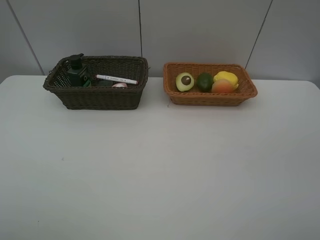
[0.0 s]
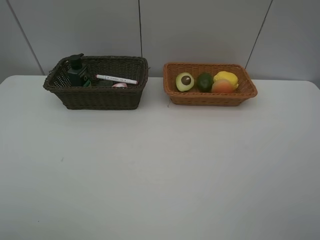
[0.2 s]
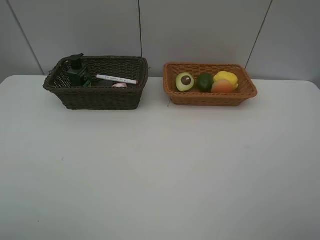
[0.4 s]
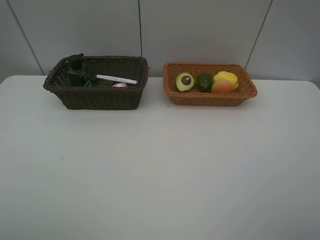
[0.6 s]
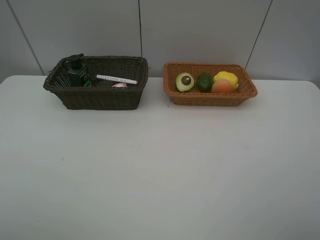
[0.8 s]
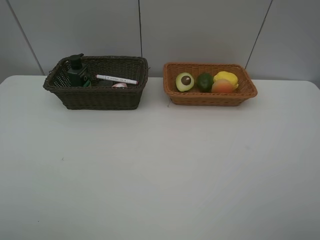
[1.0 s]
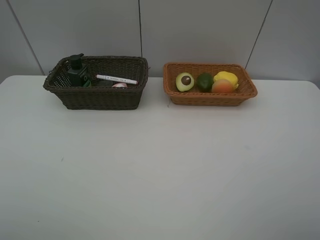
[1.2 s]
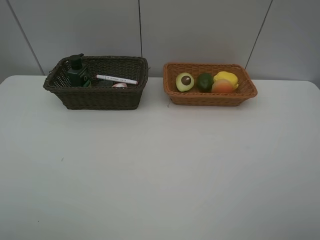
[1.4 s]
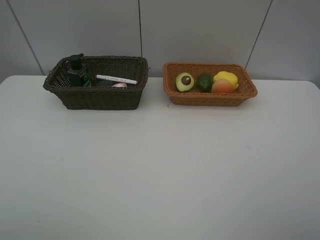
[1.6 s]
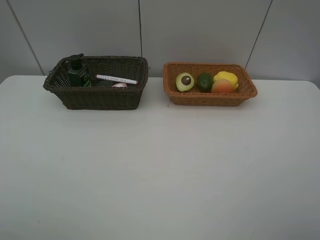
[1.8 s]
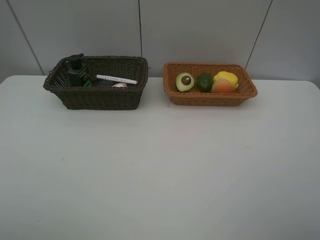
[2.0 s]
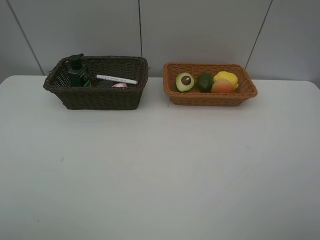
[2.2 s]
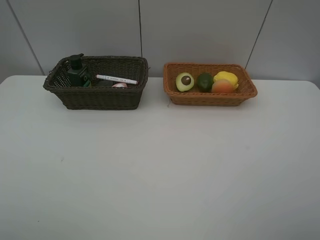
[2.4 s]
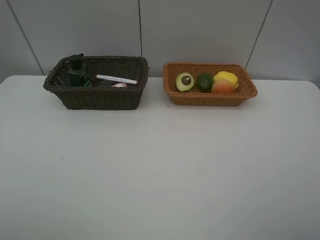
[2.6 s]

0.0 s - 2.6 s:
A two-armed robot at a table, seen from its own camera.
Task of the whole recording: Place multiple objects separately in different baskets.
1.2 s - 2.6 s: The two grippers keep their place.

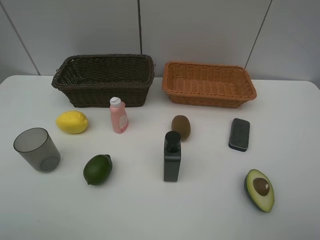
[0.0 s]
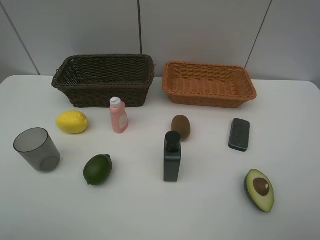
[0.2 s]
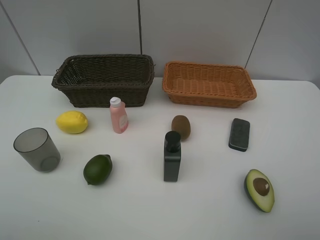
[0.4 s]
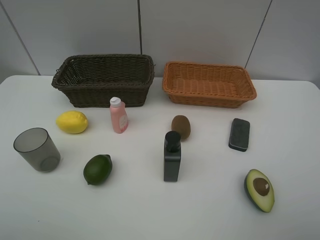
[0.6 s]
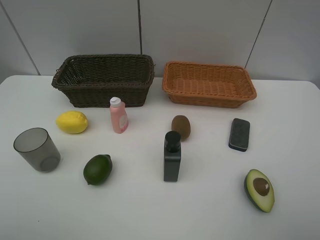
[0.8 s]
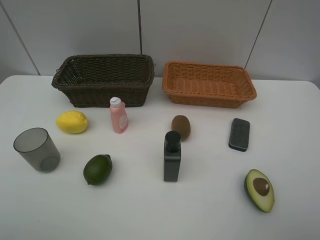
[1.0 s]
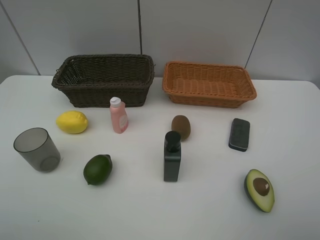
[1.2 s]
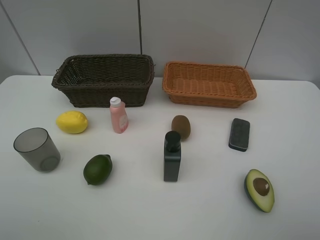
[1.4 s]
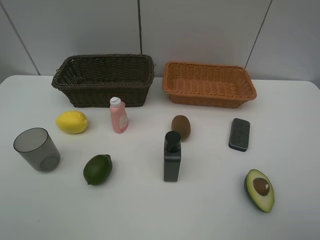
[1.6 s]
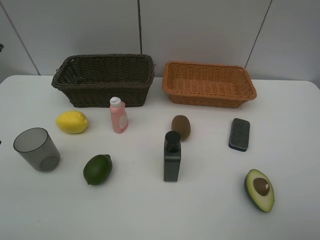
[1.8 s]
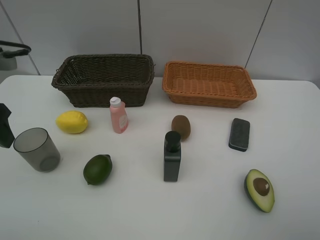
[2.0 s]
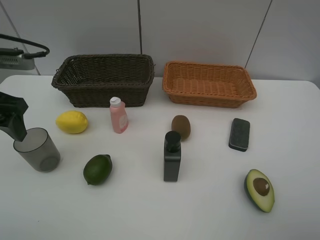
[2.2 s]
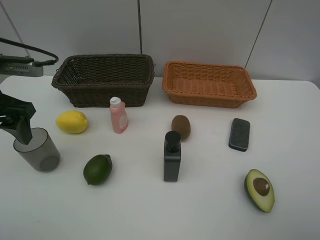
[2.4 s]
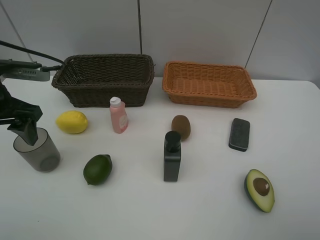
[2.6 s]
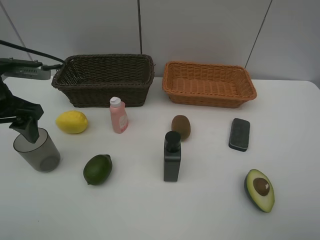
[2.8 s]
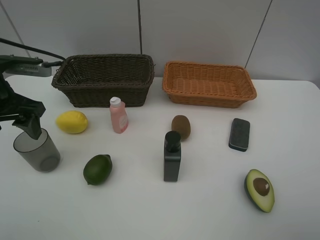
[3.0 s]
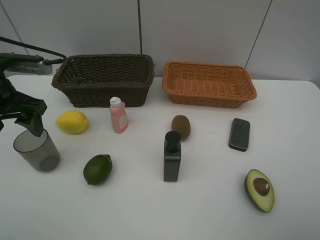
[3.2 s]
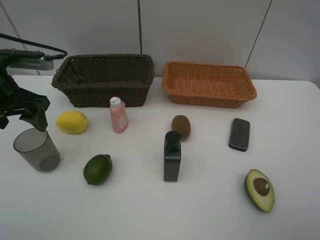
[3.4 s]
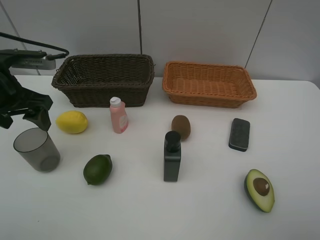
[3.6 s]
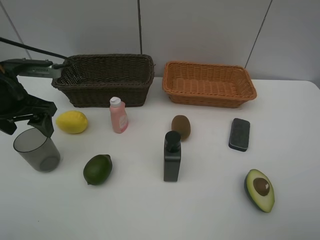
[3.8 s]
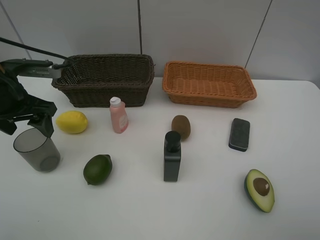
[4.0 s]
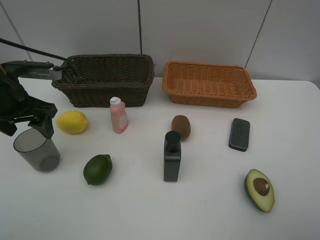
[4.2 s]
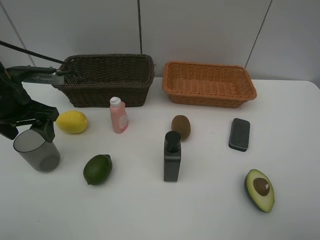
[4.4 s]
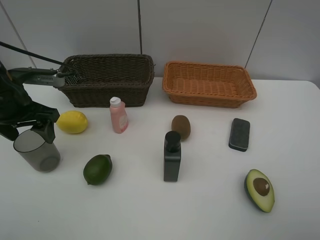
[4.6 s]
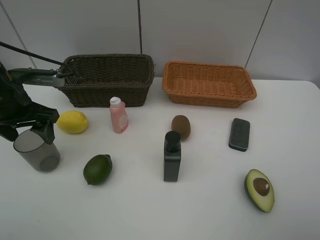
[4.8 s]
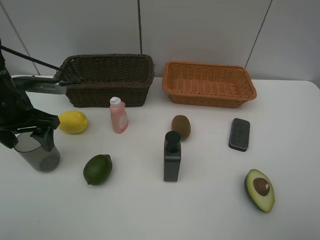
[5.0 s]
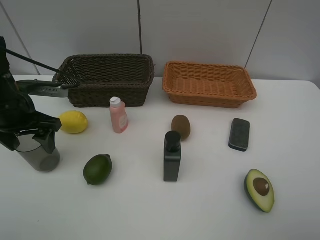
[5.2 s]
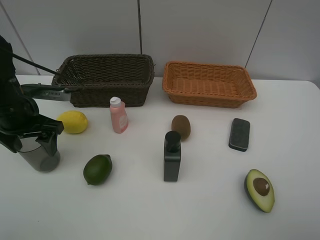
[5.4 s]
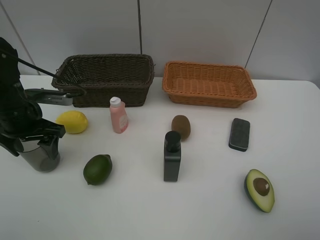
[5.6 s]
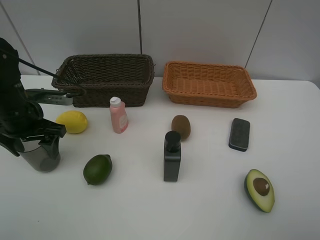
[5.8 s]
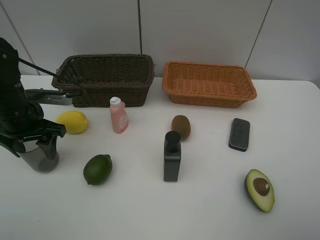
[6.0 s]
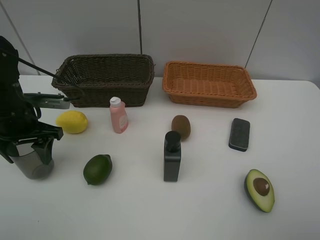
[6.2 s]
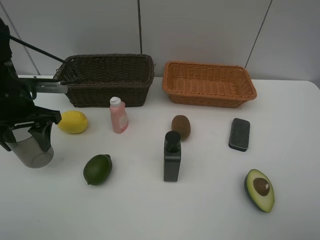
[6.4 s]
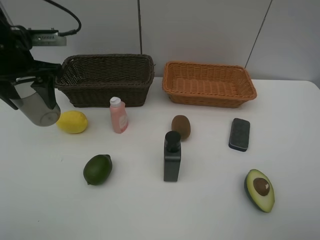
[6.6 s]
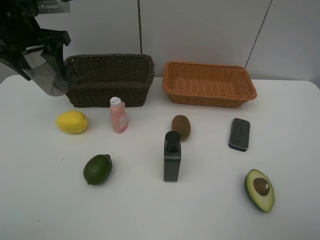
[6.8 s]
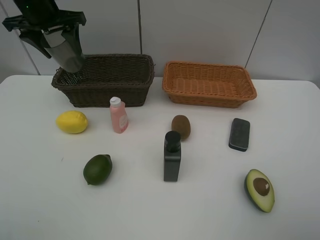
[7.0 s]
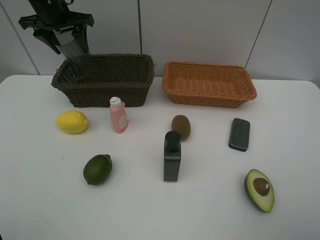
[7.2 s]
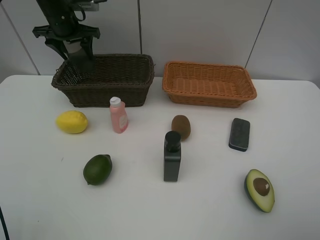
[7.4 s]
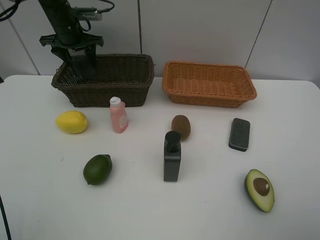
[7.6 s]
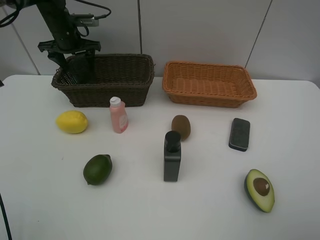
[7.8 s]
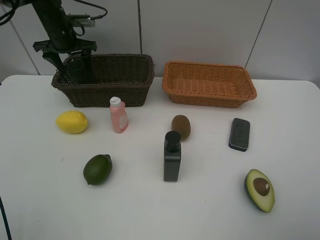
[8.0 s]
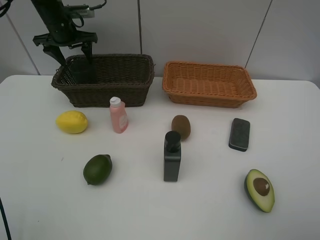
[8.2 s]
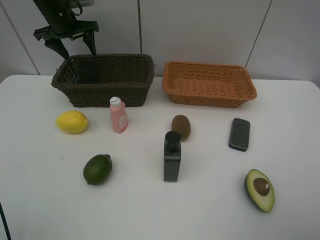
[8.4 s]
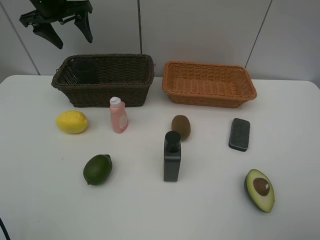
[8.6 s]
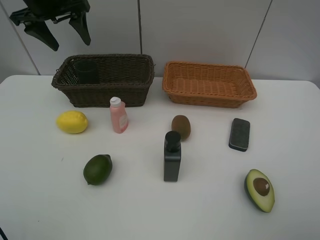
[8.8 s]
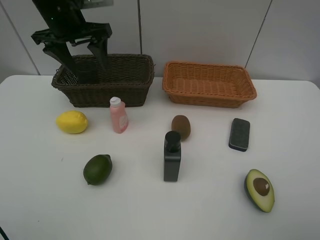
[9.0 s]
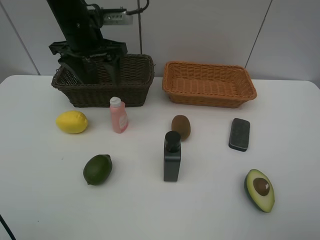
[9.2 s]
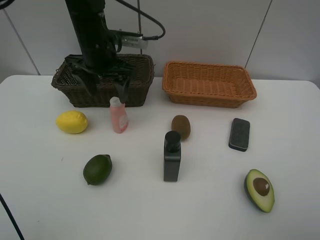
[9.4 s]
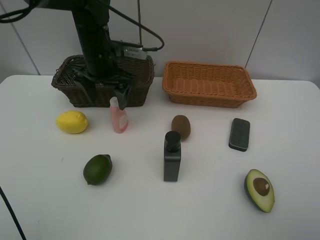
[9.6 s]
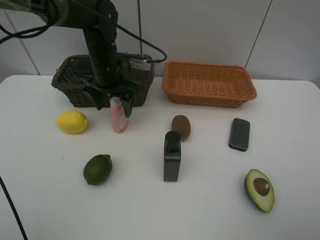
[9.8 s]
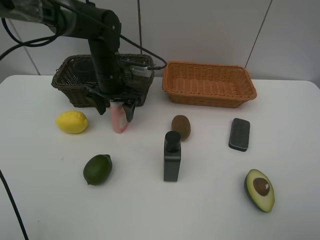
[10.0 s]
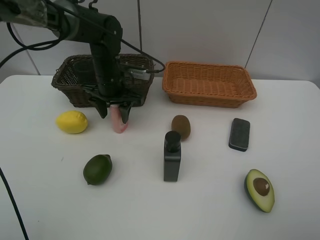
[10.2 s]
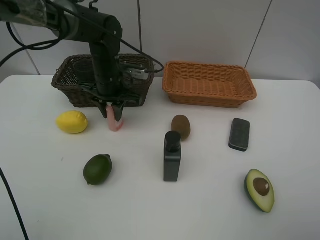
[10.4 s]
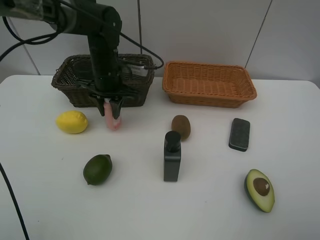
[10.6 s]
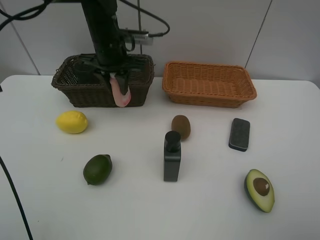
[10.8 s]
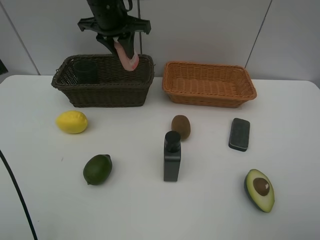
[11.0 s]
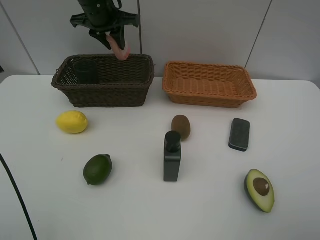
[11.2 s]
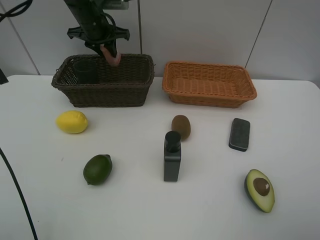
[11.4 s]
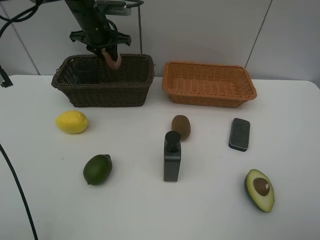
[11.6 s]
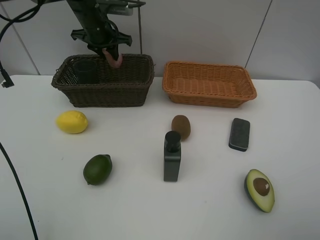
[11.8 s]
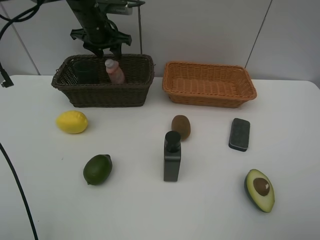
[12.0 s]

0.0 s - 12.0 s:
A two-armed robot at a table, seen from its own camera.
Task of the whole recording: Place multiple objects separately in different baskets.
Step, 0.0 s - 6.2 s: Pick up gray cup with left gripper.
Step, 6.4 s - 8.4 s: Place the gray cup in the dark basket with left gripper.
Step, 8.6 s - 10.6 s: Pick up the laundry detergent with left gripper.
1.6 s - 3.0 s: The left gripper is displaced forward and downward by approximately 15 cm.
3.0 s - 4.4 s: The grippers make only small movements.
4.4 s - 6.0 s: The grippers stay close to where they were, moving slightly.
6.0 s - 7.6 s: The left gripper travels forward by about 25 cm.
7.6 s - 9.0 s: The left gripper is displaced backward, upward and to the right by approximately 15 cm.
9.0 s - 10.4 s: The left gripper travels downward and to the right by roughly 15 cm, and closes up.
10.4 s - 12.0 s: The left gripper moves forward and upward, some 15 cm, and opens up.

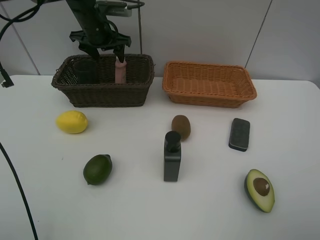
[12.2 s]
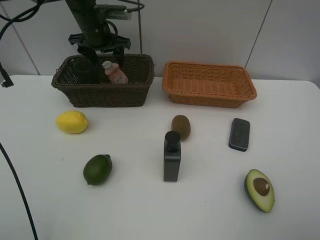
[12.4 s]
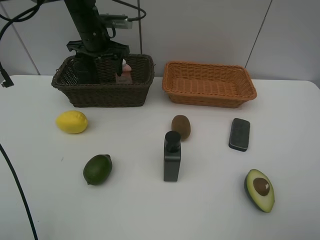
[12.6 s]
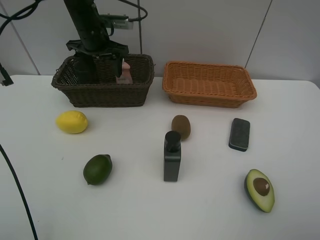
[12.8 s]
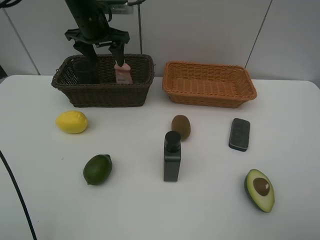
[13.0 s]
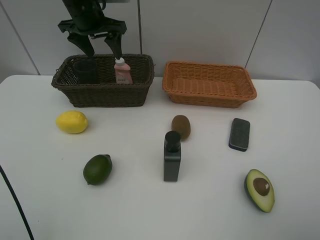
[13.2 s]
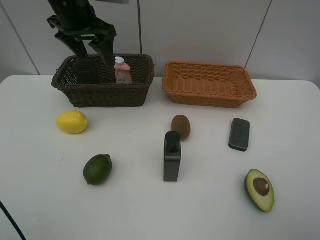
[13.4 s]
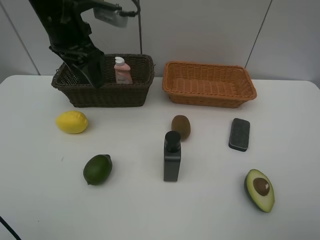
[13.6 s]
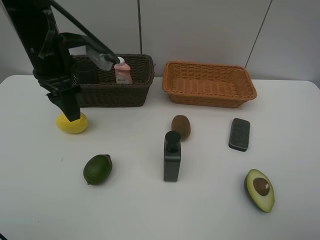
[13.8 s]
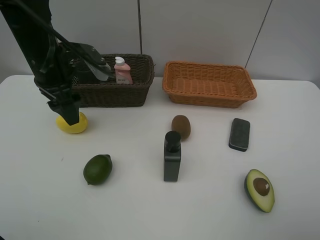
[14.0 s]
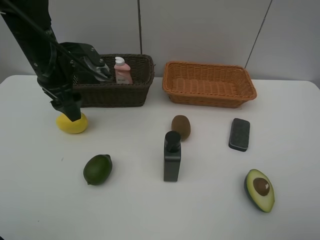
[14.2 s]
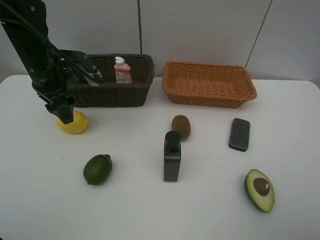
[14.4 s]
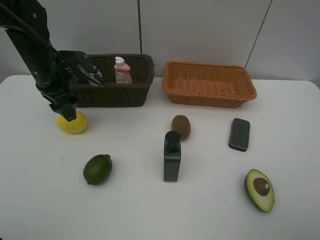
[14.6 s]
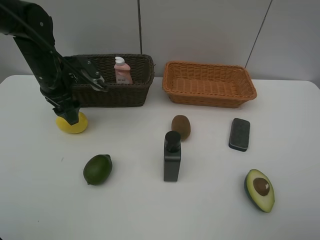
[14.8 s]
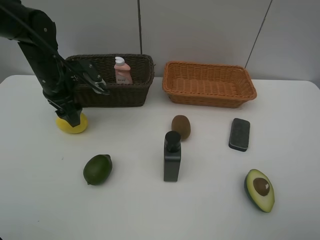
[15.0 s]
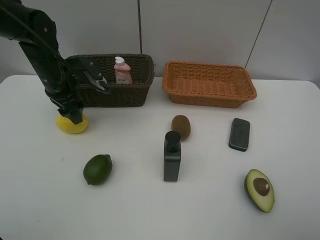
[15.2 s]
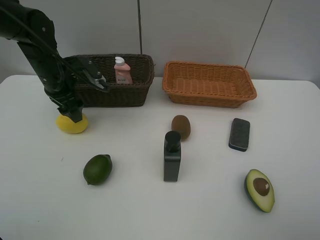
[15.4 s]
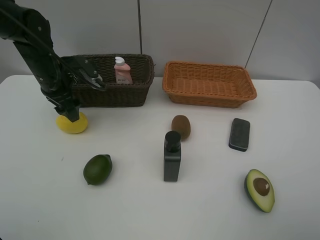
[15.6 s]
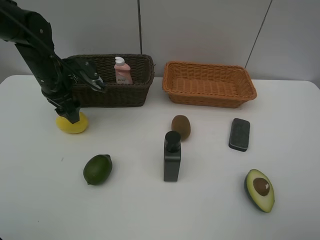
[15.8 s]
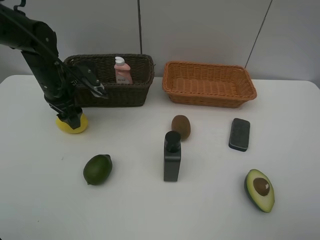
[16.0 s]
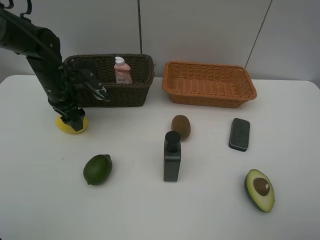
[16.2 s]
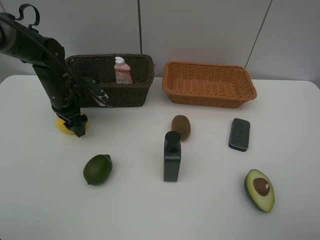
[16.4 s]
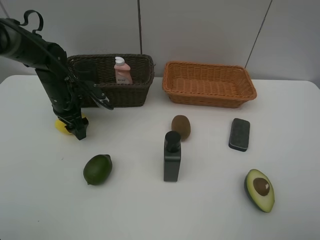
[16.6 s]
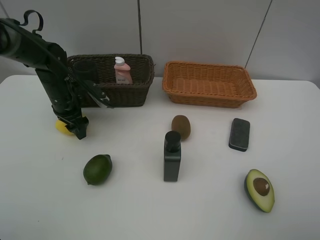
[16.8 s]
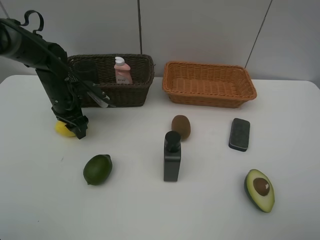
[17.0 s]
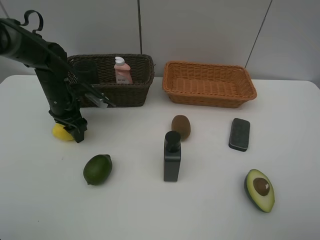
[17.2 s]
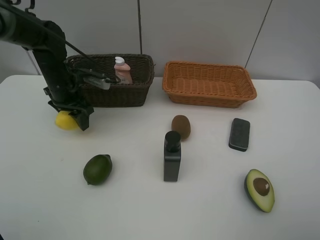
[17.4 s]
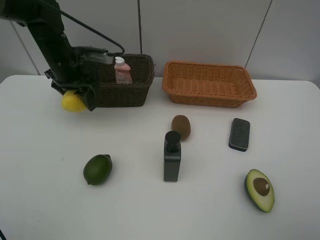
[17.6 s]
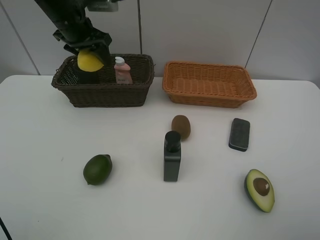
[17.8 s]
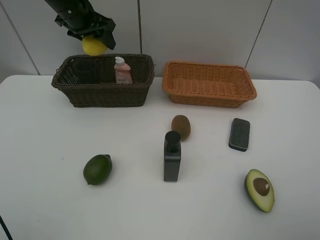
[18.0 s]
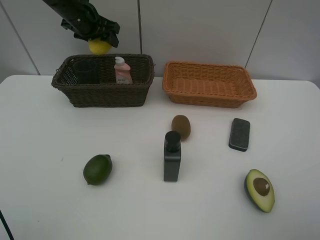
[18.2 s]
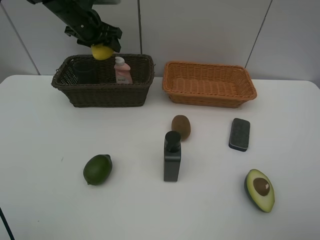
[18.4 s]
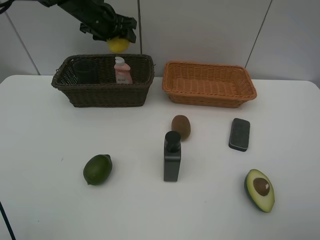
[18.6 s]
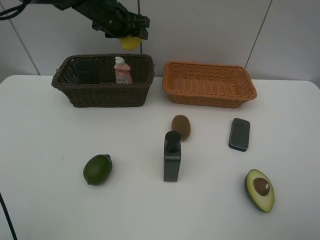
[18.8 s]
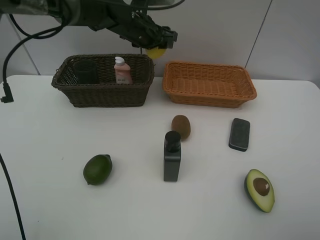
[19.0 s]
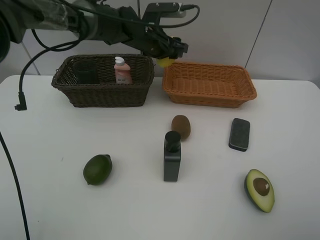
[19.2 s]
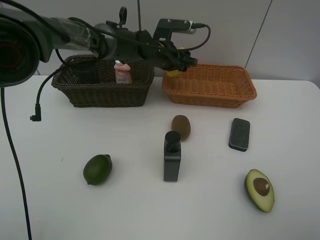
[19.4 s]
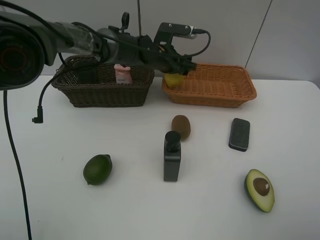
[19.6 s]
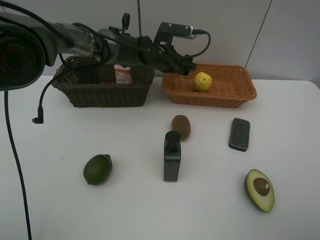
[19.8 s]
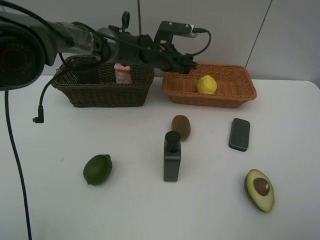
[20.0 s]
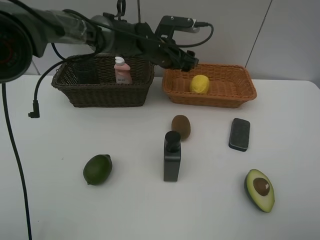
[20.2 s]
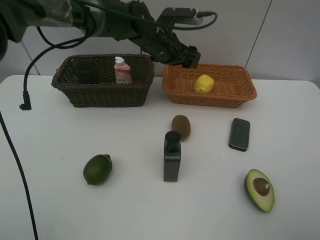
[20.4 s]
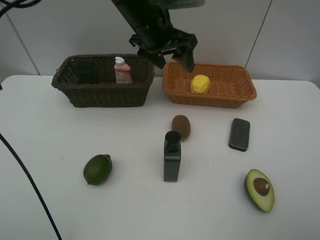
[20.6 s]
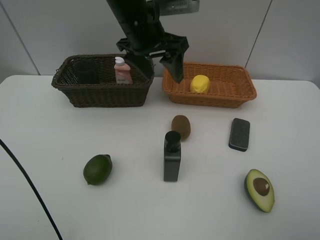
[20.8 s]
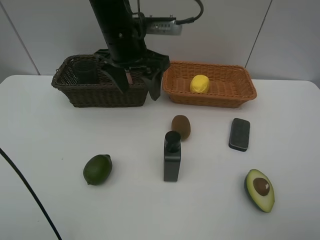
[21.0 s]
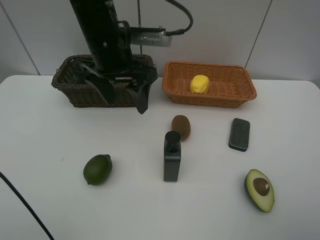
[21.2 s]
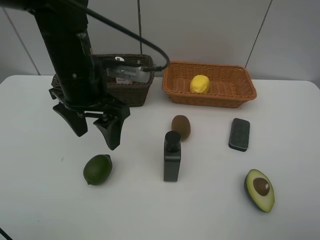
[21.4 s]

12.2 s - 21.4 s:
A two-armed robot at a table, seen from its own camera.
Task of the whole recording: Place multiple objects separately in different baskets.
Step, 12.4 s - 17.2 s: Pick up the lemon with left gripper.
Step, 17.4 s - 19.8 s: Place the lemon in the light basket with left gripper.
12.2 s - 13.8 s: The left gripper is displaced backward by some 20 cm.
13.8 s - 15.2 s: The left gripper moves downward and forward, roughly 10 cm.
15.2 s - 16.8 s: The left gripper moves downward, about 5 cm.
16.8 s - 18.4 s: The left gripper is displaced upward and forward by about 15 cm.
18.4 s - 19.8 s: The left gripper heads to the right and downward, covering approximately 20 cm.
19.8 s - 21.4 s: The left gripper travels backward and to the left by roughly 25 cm.
